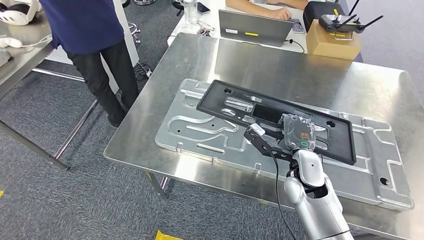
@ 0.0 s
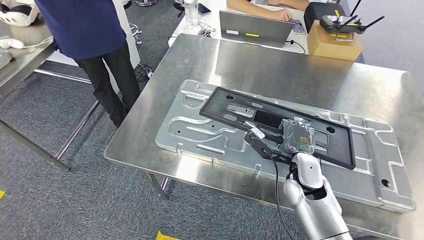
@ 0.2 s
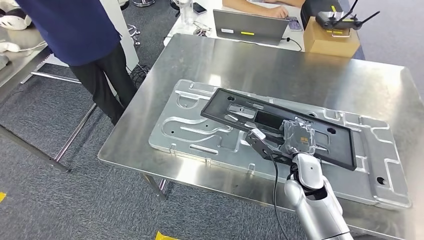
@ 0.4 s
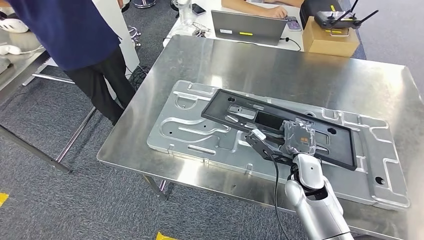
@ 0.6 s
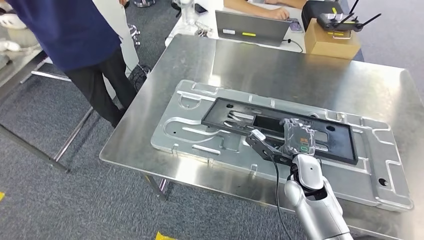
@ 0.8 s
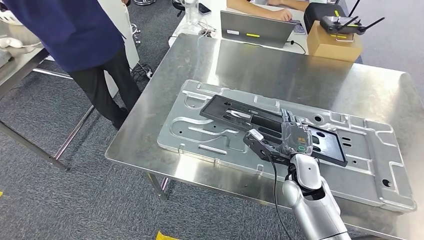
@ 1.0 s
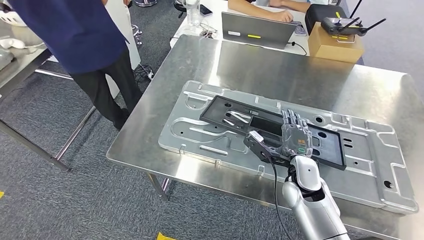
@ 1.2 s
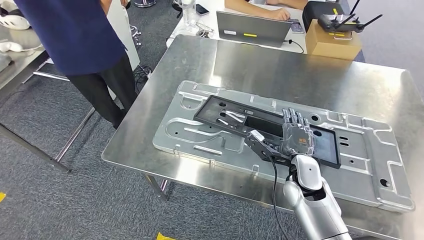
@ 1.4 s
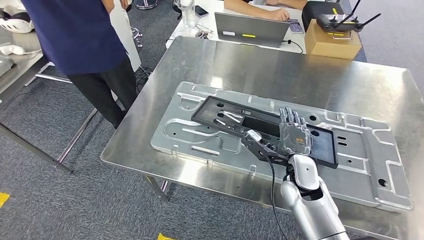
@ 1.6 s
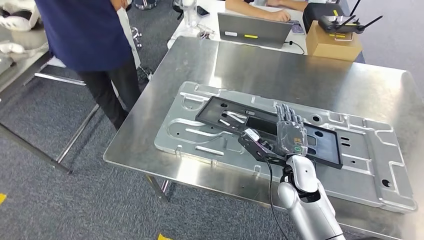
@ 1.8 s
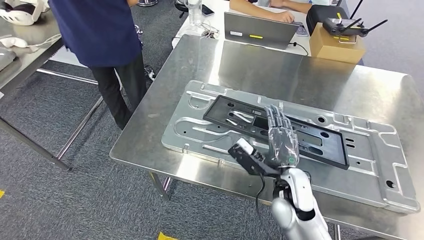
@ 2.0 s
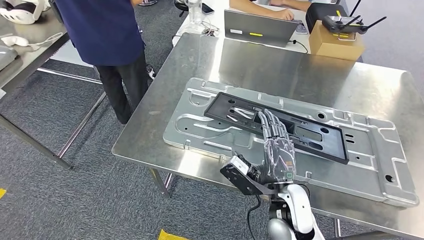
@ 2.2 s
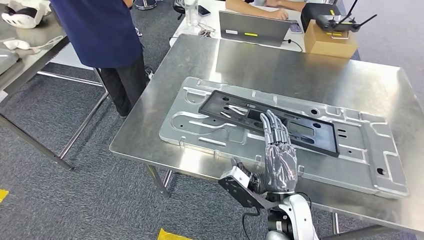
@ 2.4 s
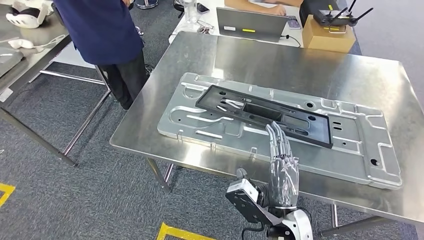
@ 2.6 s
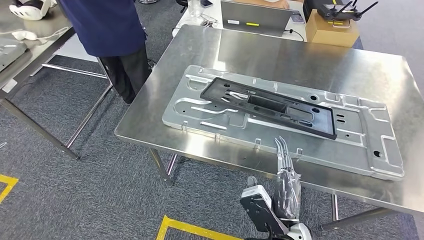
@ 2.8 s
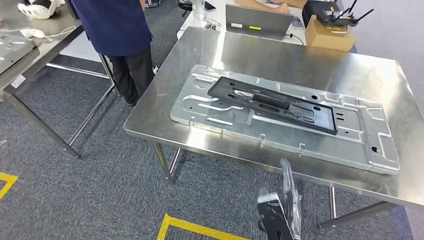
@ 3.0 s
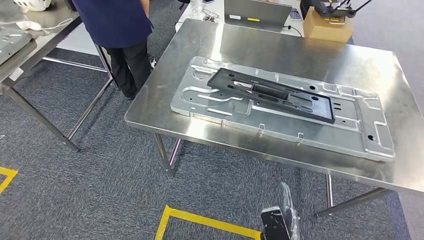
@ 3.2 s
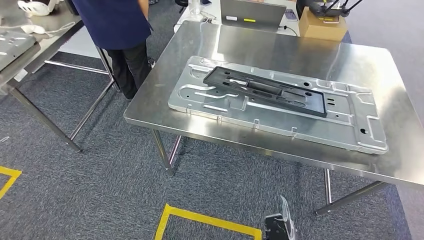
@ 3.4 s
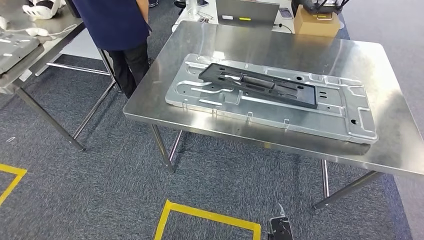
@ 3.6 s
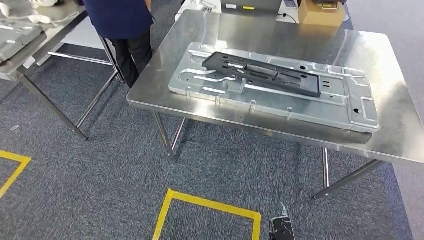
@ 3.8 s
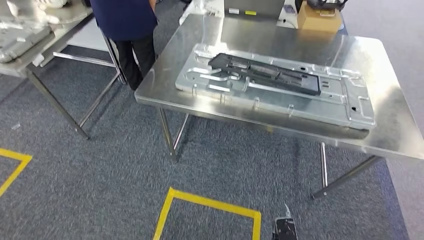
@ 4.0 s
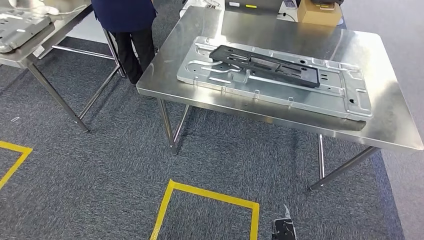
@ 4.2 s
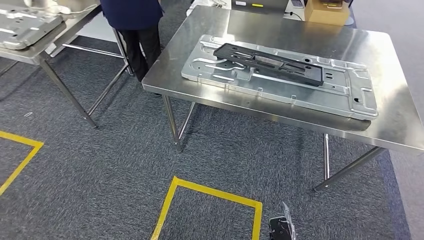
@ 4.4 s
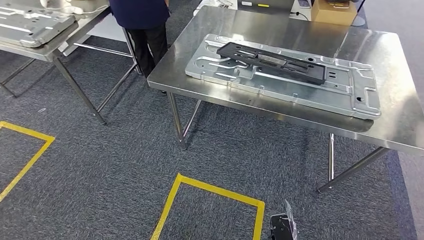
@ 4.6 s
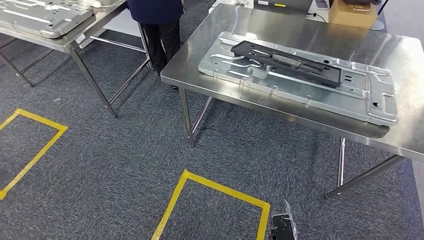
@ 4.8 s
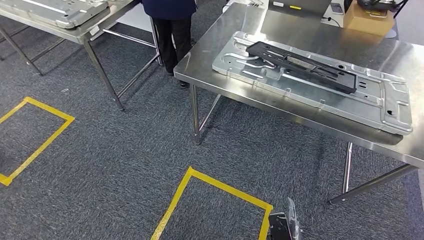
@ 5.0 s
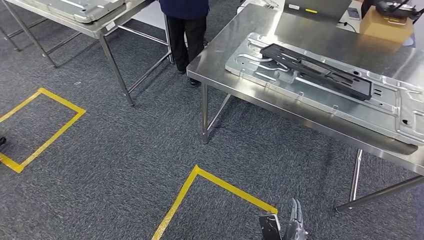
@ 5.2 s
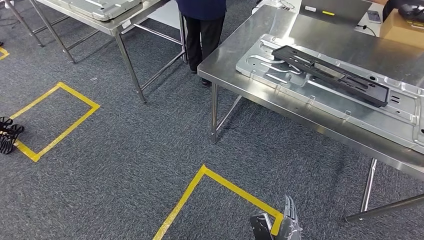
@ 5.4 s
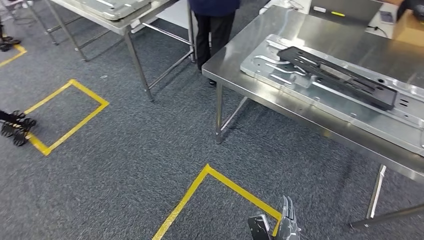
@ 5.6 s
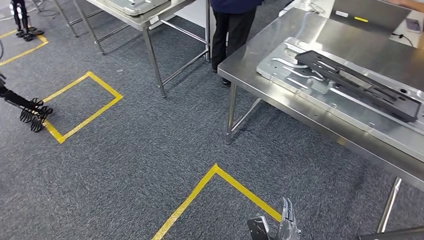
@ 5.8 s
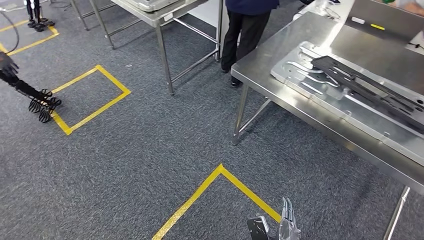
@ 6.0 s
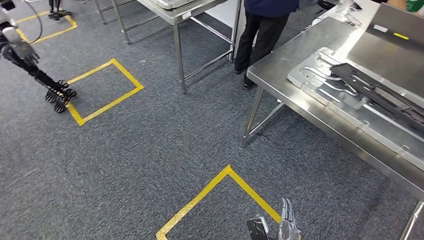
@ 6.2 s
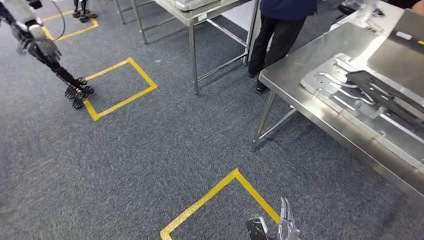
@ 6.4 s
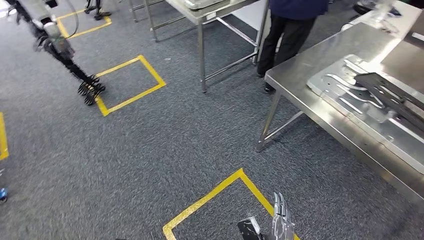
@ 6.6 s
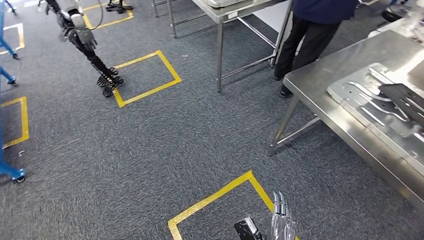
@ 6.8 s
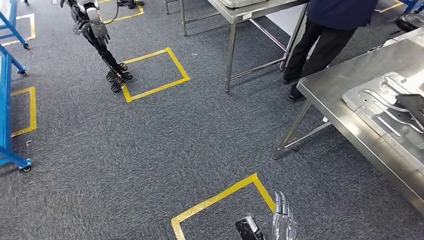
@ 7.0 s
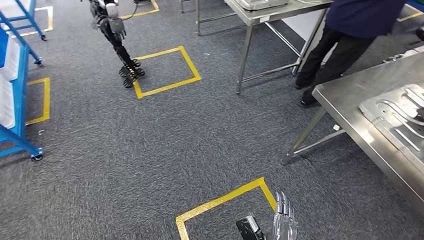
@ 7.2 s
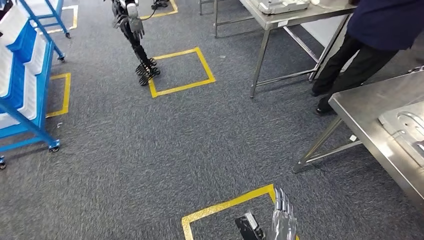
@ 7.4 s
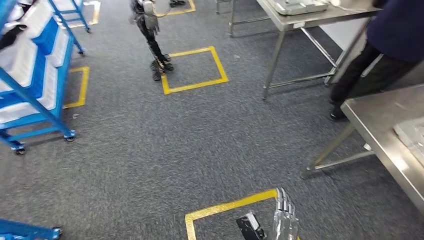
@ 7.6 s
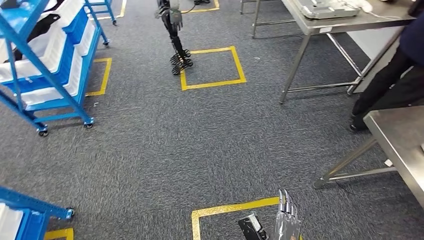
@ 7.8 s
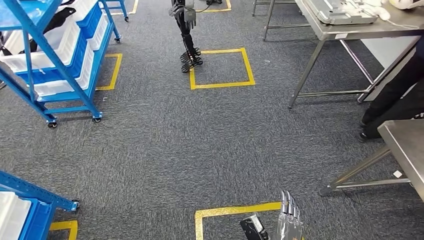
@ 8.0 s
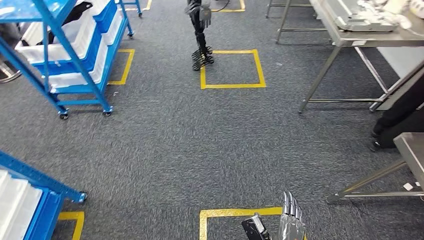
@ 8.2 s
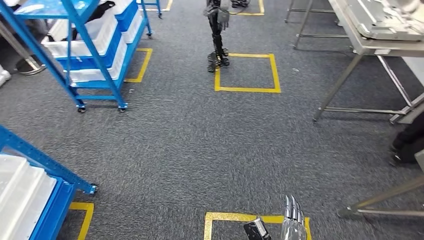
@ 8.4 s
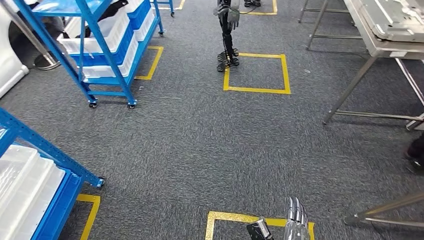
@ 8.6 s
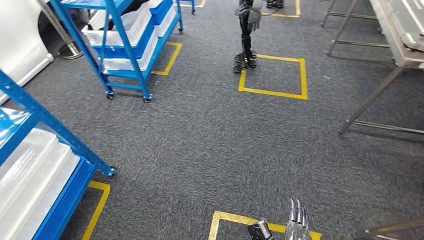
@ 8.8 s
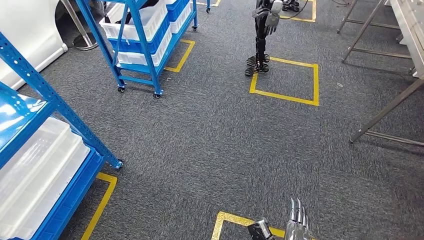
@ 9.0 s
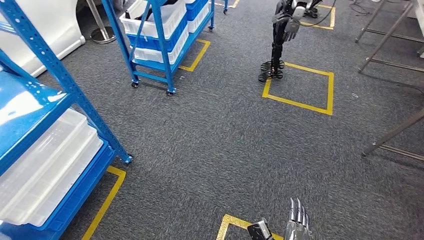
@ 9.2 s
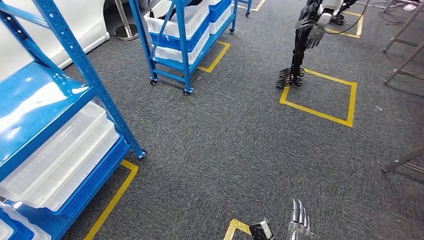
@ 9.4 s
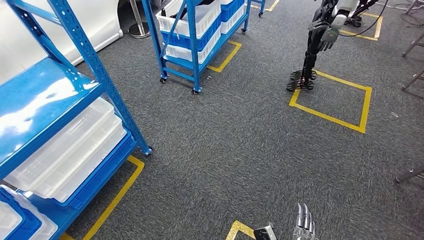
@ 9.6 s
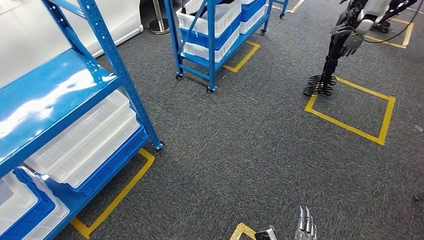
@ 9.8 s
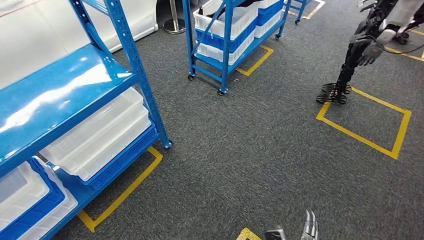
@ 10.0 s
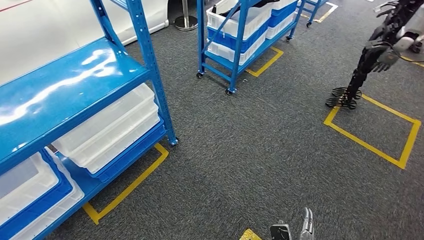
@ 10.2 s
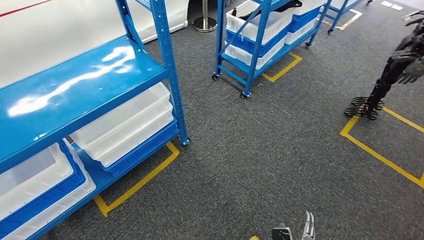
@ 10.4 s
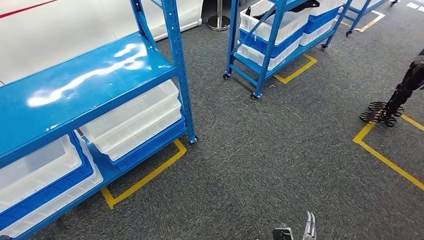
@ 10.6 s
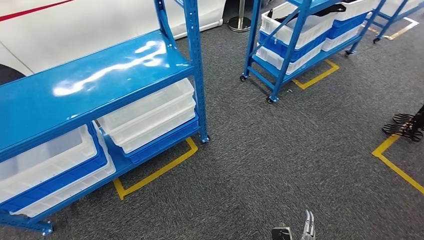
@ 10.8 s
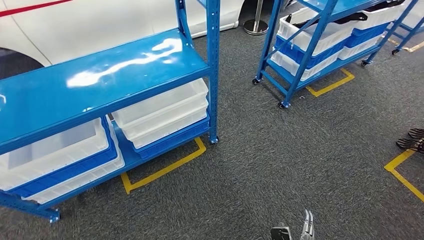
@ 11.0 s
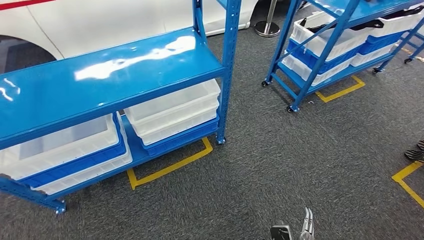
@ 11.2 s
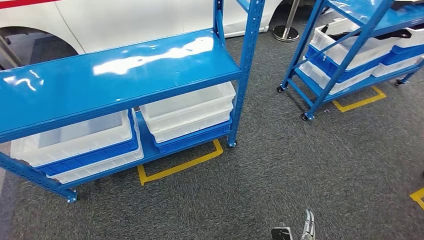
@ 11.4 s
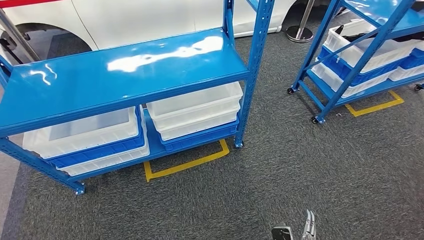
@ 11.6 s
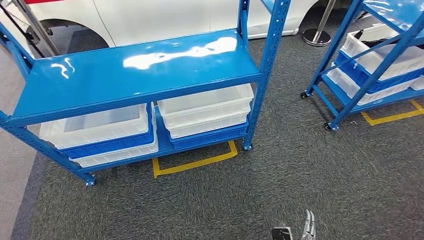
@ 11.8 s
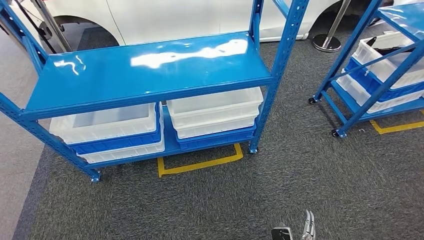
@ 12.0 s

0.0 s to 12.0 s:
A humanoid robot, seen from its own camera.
Step, 0.0 to 4.2 s: Insert the large material into the corresponding hole on the workbench.

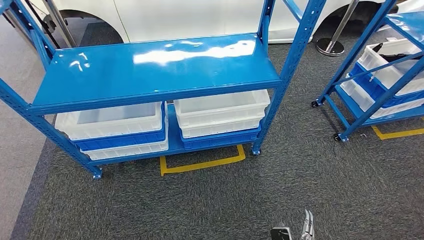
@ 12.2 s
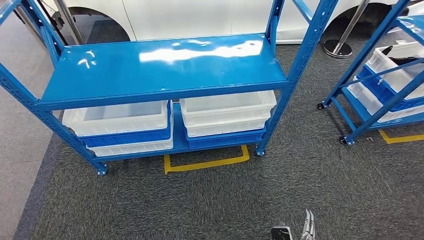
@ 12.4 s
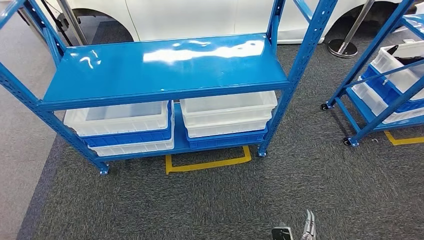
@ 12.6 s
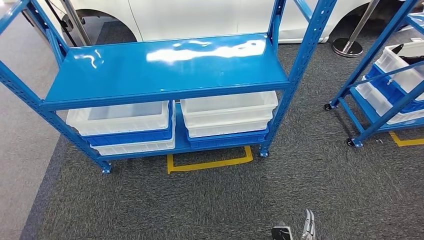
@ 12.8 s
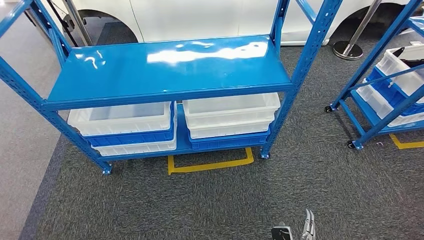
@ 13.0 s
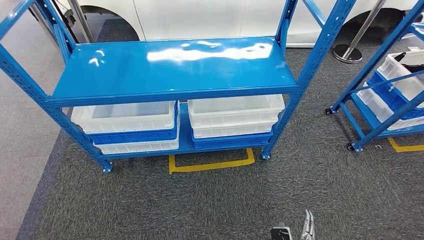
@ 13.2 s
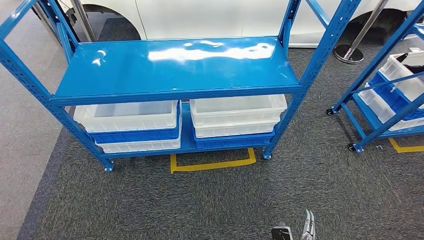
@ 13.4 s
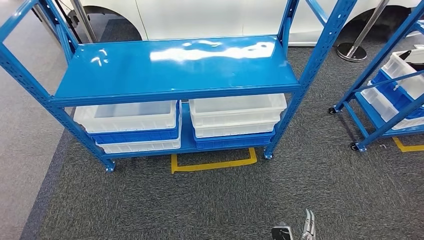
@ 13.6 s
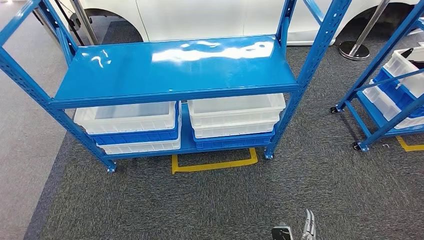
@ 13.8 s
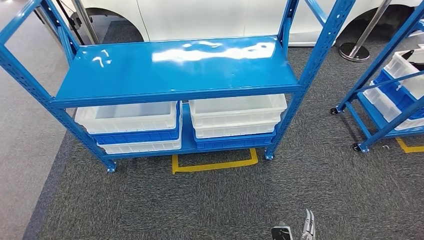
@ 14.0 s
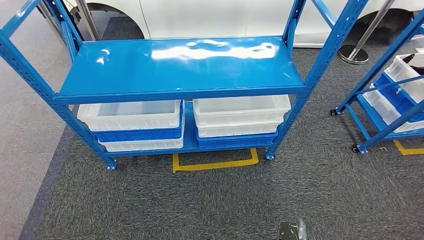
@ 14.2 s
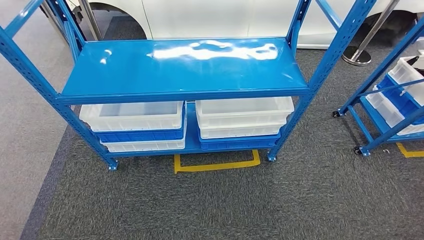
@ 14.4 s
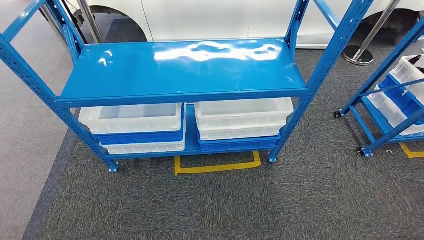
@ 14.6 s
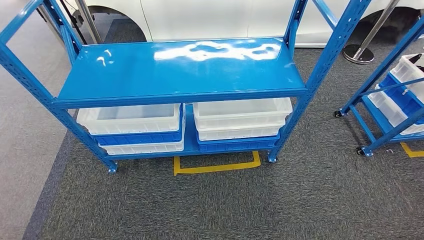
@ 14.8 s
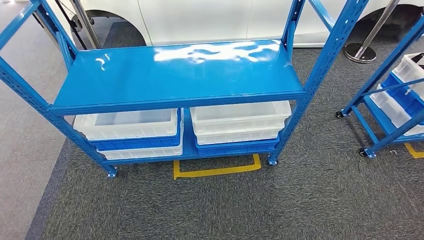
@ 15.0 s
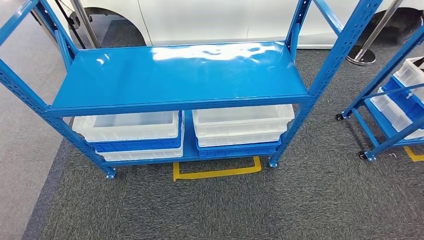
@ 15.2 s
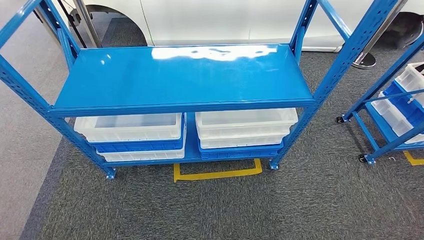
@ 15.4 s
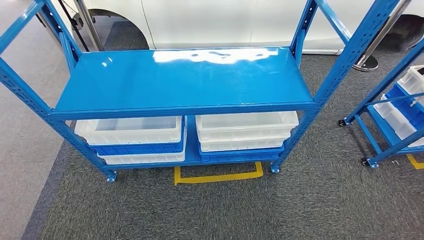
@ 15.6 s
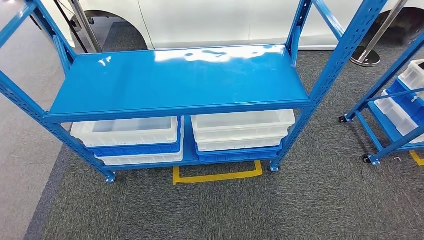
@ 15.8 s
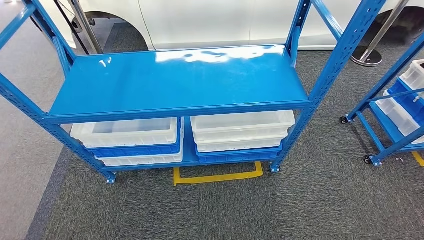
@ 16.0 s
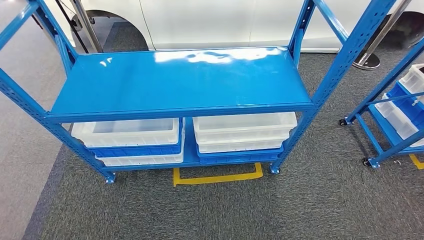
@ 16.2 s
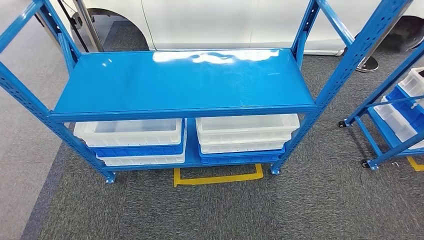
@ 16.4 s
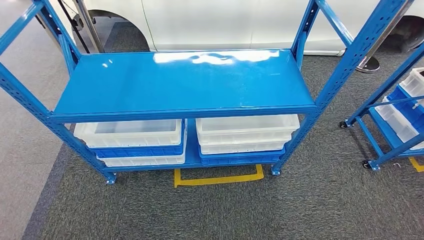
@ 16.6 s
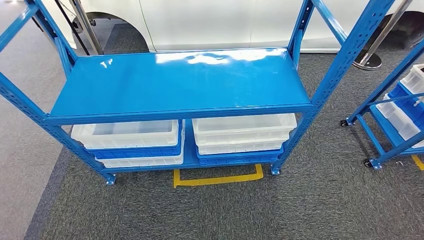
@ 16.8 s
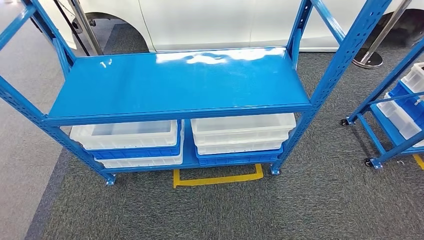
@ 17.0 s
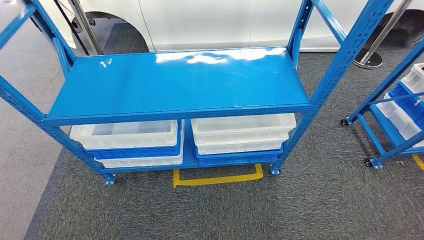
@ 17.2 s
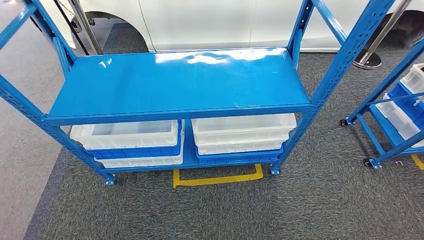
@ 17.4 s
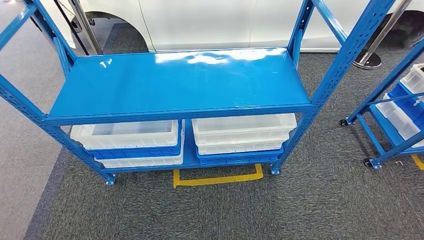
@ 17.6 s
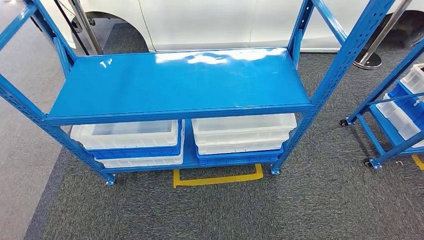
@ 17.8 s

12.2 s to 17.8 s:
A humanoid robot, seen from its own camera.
Step, 12.2 to 17.8 s: Move to the initial position of the shelf.
16.4 to 17.8 s: The hands stay close to where they were, moving slightly.
